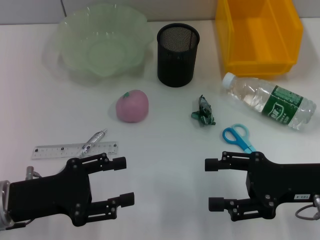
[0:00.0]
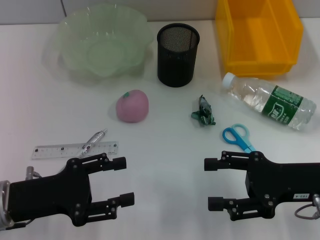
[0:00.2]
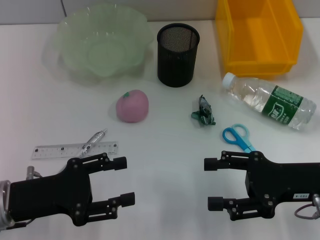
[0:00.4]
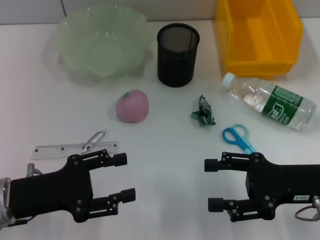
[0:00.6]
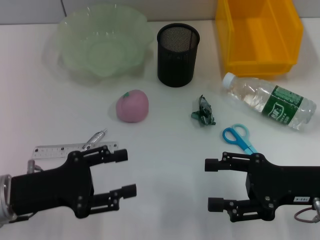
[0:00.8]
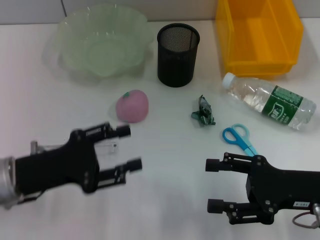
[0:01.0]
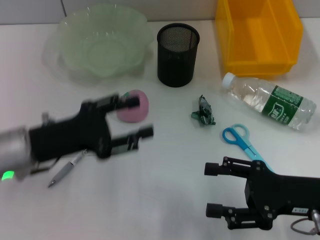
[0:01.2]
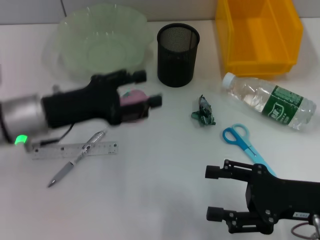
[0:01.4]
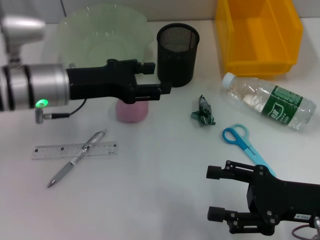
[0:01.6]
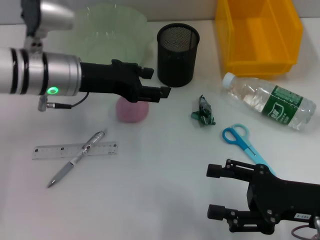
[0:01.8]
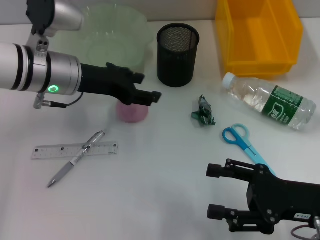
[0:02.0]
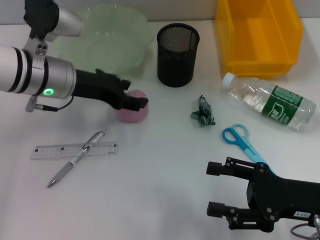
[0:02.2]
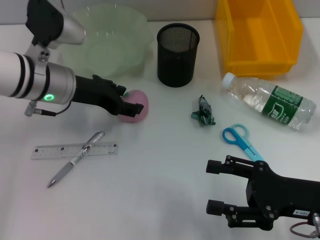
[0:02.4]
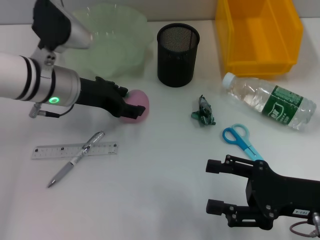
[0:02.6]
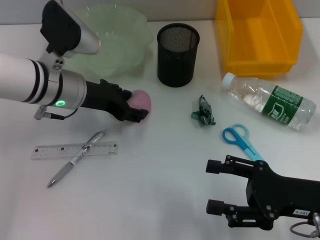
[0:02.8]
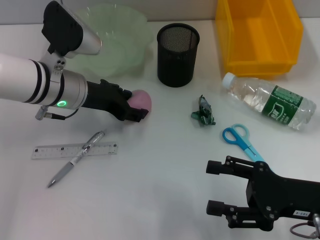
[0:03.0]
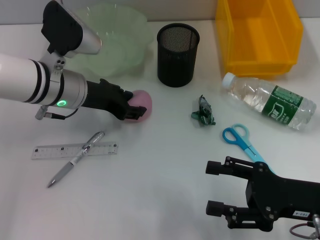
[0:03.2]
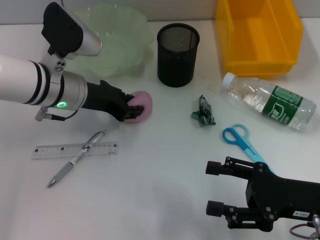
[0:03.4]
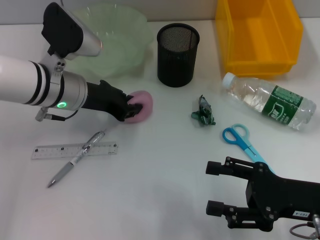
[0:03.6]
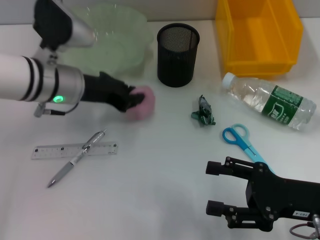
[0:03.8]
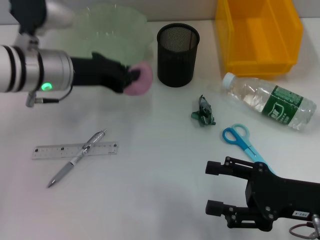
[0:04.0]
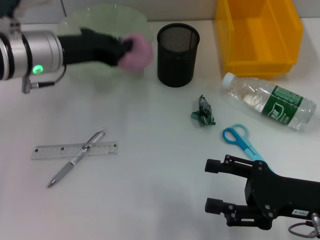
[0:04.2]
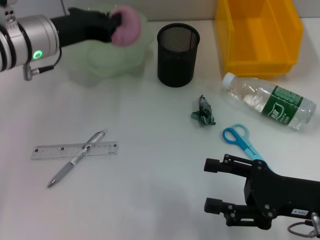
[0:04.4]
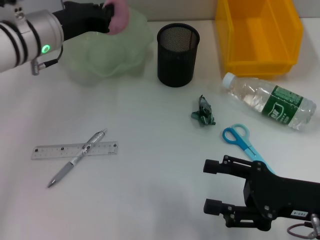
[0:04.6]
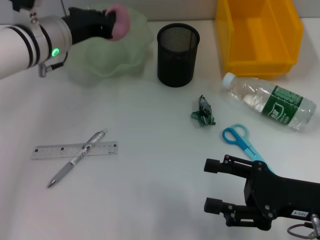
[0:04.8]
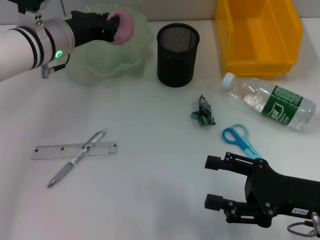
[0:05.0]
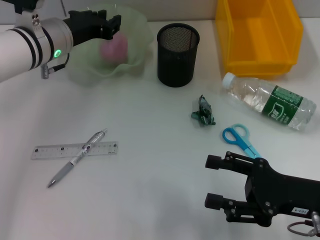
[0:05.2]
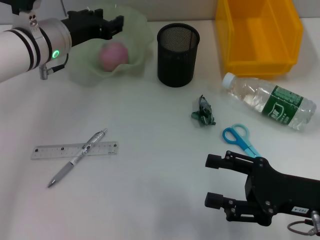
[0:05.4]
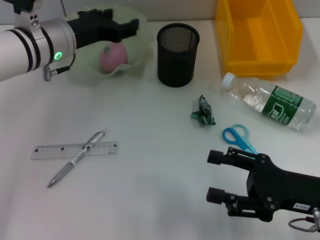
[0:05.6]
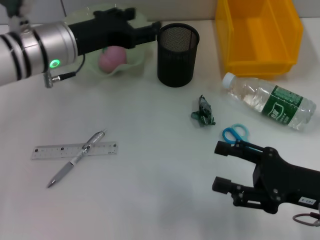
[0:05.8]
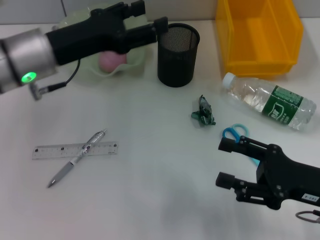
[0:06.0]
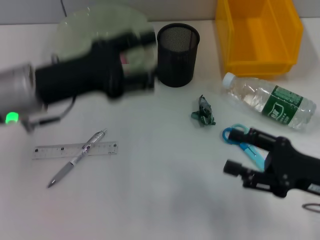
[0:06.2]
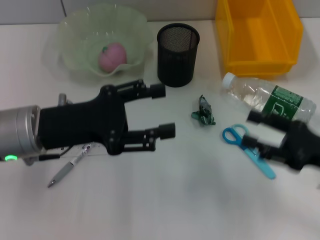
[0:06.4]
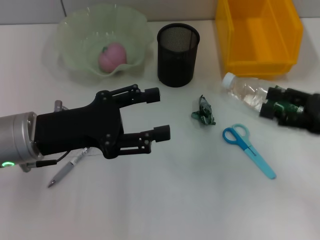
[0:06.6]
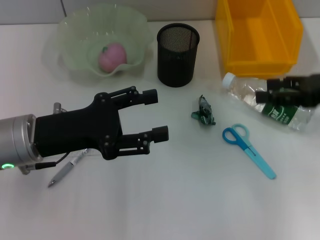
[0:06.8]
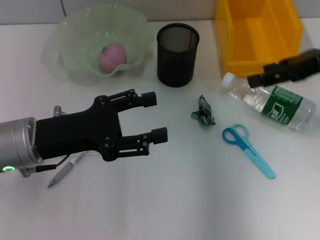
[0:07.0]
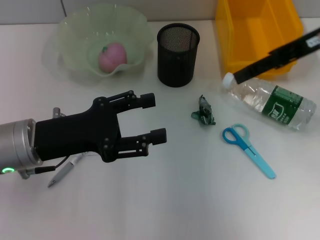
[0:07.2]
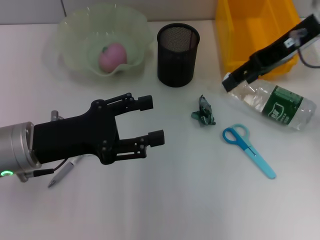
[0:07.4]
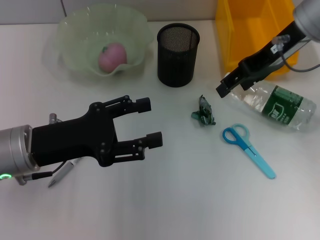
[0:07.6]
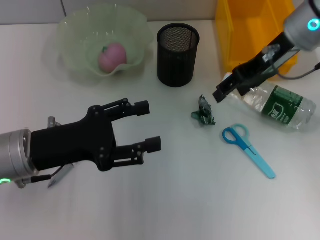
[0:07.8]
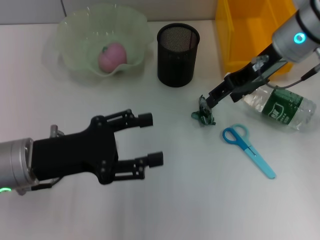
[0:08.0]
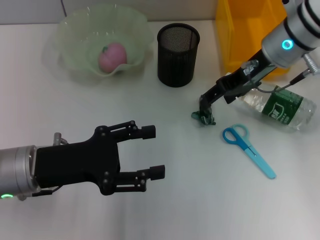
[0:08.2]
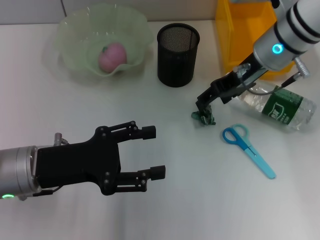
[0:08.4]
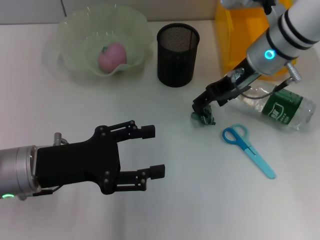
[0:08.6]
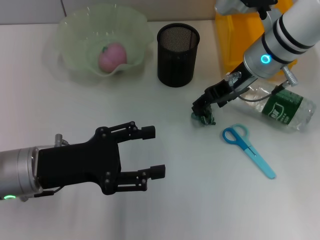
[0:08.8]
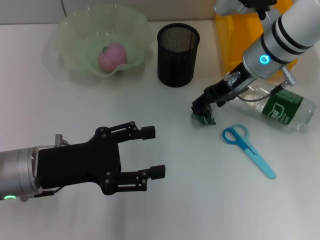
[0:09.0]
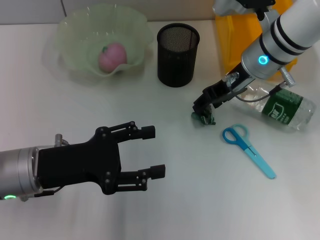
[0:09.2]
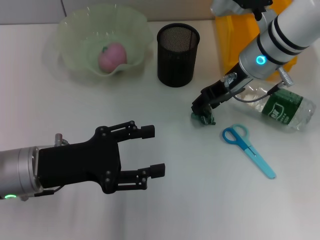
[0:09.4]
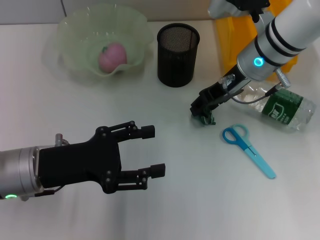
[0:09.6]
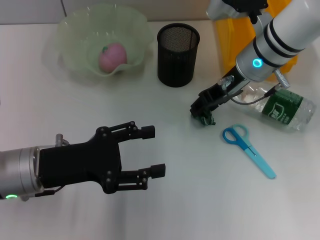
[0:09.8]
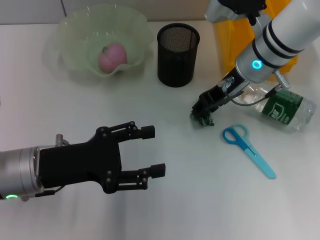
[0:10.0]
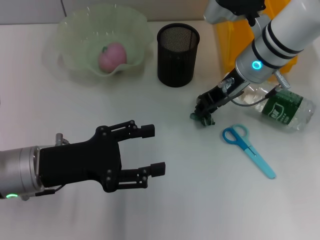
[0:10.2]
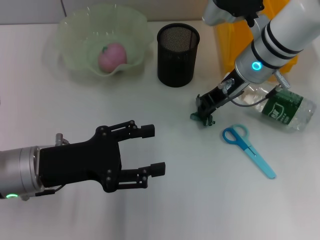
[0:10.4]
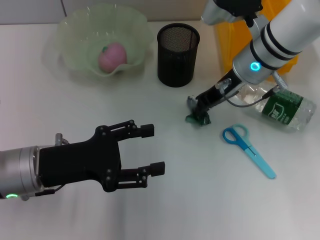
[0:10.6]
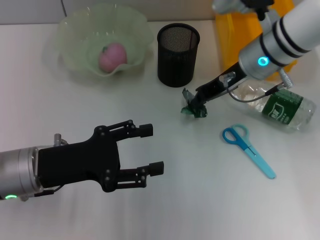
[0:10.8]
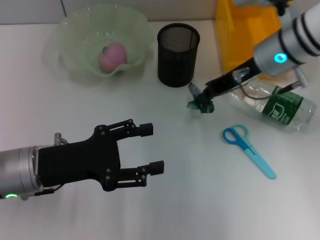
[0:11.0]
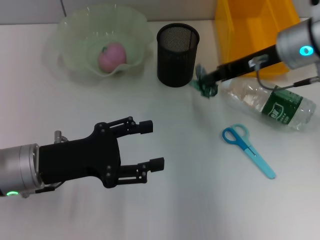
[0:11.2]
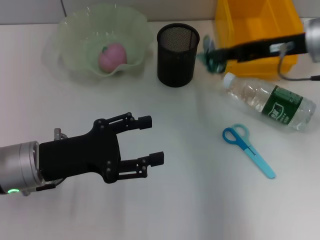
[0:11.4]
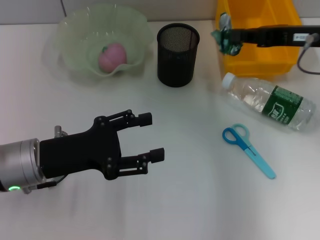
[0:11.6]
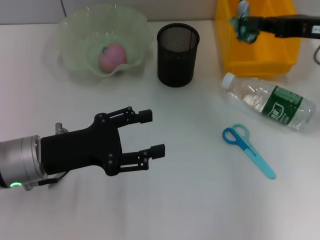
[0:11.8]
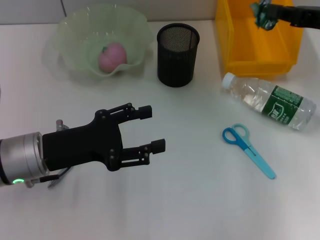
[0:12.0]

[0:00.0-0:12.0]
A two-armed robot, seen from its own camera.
Step, 0:00.0 to 0:03.4: Grab the peach with the left hand.
Step, 0:03.8 to 0:05.4: Place the peach into the fruit bowl with the left hand.
Step, 0:05.6 to 0:10.4: Grab the plastic with the right hand.
0:00.0 to 0:01.6: The left gripper heads forward, upward and to the right, covering about 15 cm.
0:03.0 to 0:04.4: The left gripper moves roughly 5 cm, and closes its fingers.
0:04.4 to 0:06.0: The left gripper opens.
0:06.0 to 0:07.6: The right gripper heads forward and upward, covering approximately 25 cm. The left gripper is displaced backward and downward by about 10 cm.
0:07.6 to 0:09.0: The right gripper travels downward by some 10 cm.
0:09.0 to 0:10.4: The right gripper closes its fingers.
0:10.4 to 0:12.0: The right gripper shifts some 15 cm to the right.

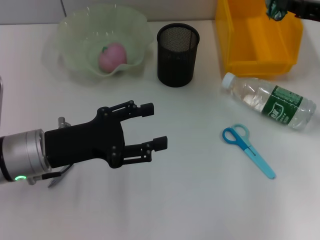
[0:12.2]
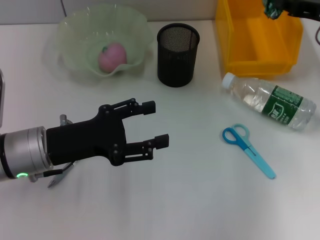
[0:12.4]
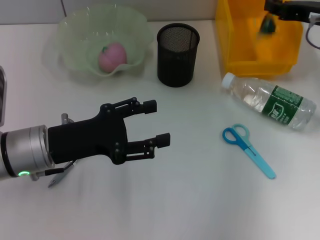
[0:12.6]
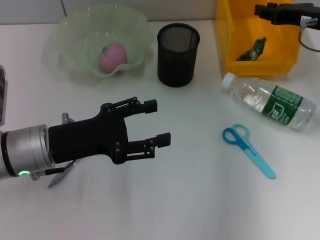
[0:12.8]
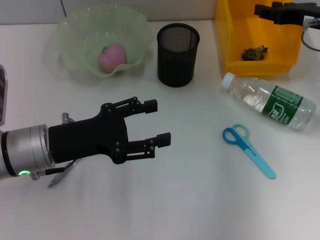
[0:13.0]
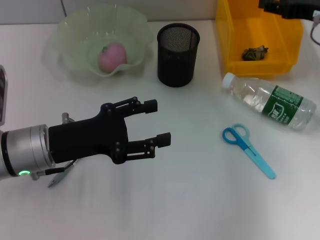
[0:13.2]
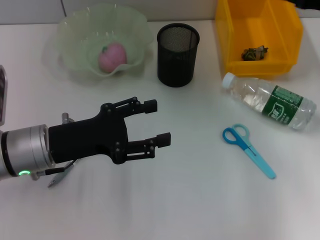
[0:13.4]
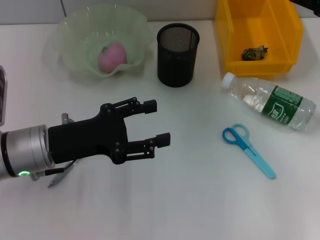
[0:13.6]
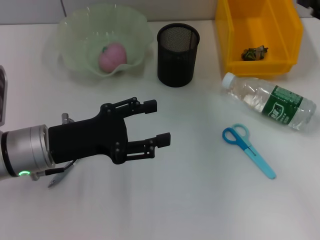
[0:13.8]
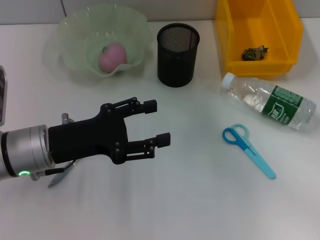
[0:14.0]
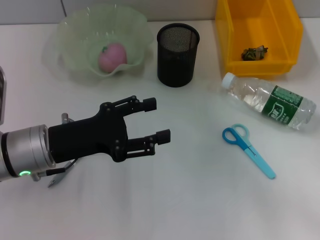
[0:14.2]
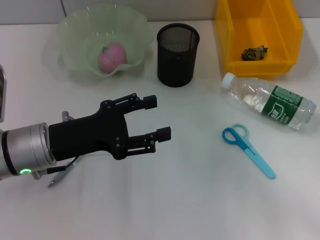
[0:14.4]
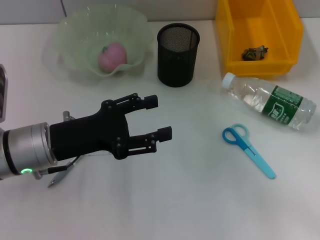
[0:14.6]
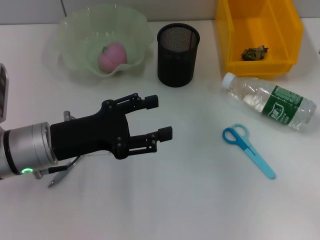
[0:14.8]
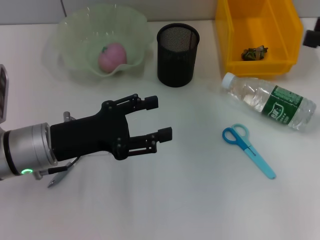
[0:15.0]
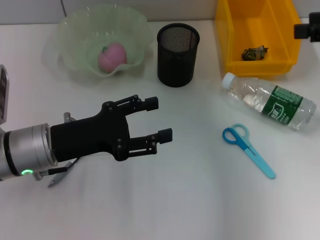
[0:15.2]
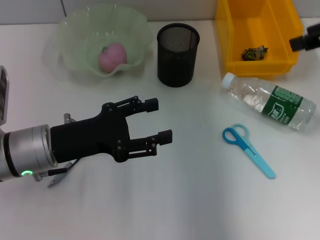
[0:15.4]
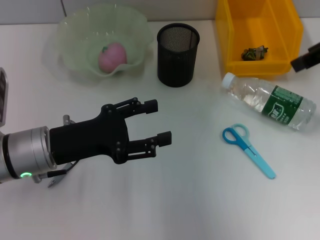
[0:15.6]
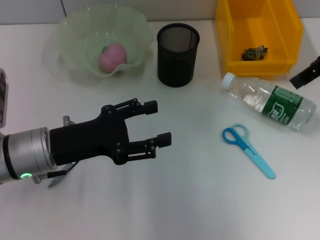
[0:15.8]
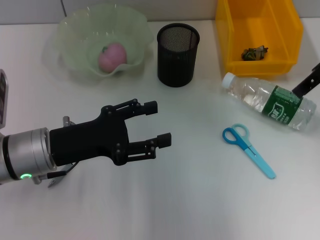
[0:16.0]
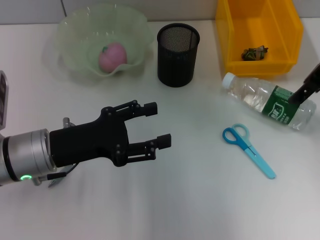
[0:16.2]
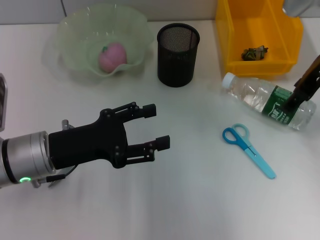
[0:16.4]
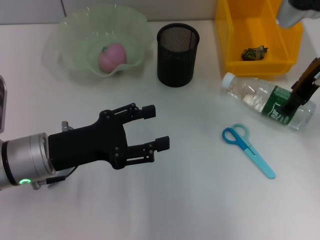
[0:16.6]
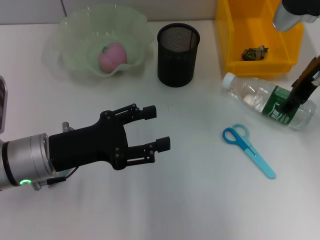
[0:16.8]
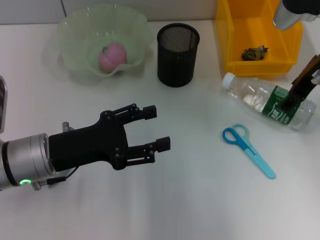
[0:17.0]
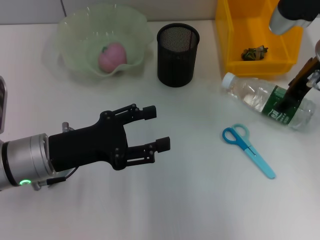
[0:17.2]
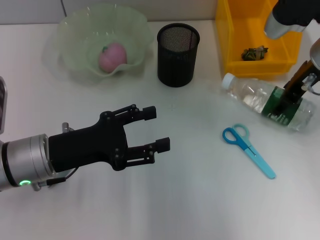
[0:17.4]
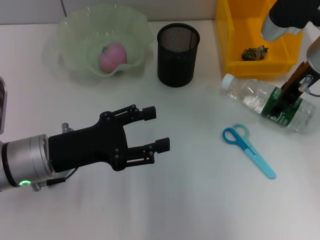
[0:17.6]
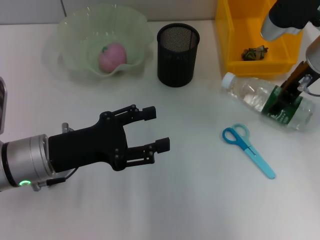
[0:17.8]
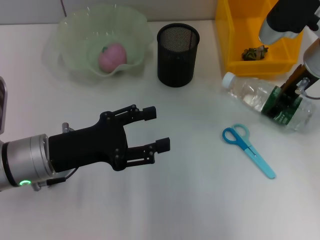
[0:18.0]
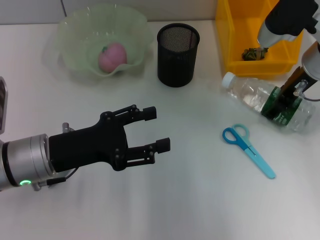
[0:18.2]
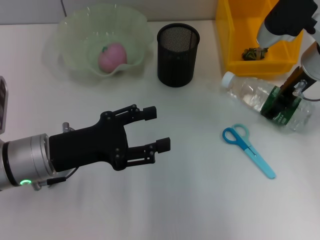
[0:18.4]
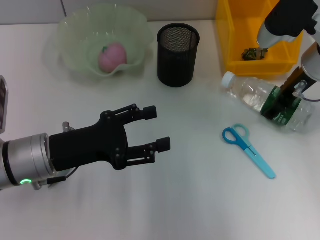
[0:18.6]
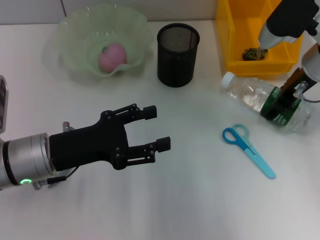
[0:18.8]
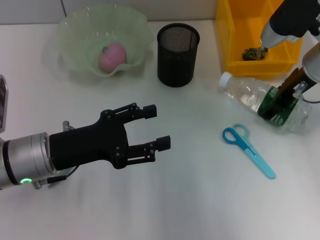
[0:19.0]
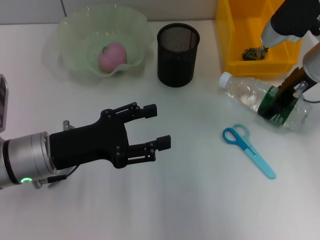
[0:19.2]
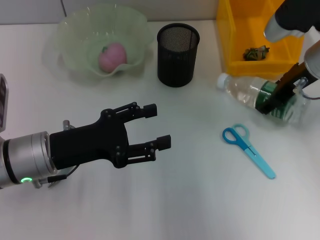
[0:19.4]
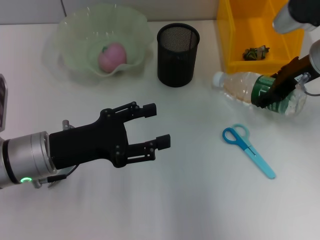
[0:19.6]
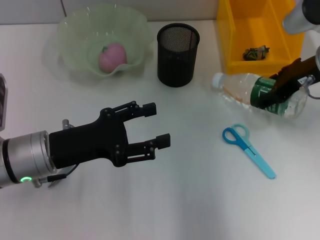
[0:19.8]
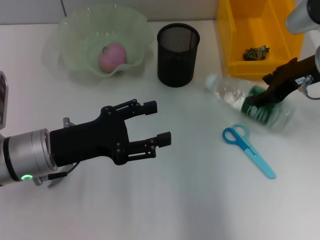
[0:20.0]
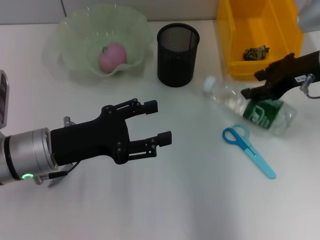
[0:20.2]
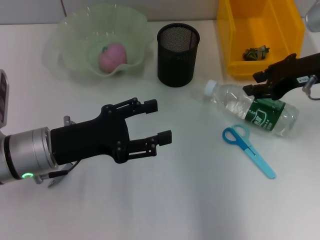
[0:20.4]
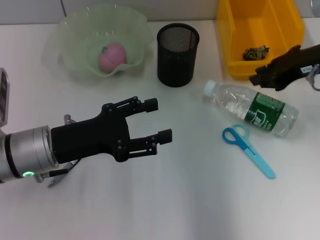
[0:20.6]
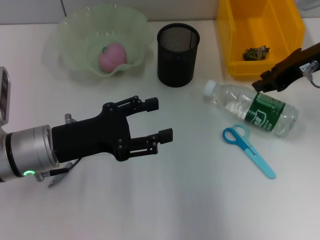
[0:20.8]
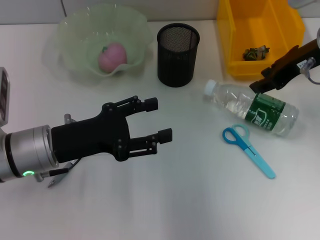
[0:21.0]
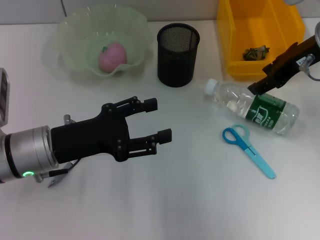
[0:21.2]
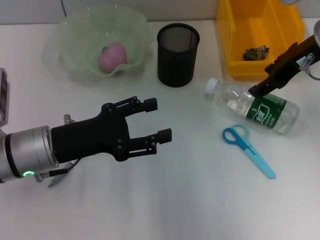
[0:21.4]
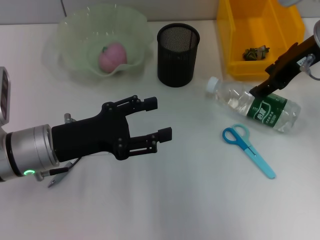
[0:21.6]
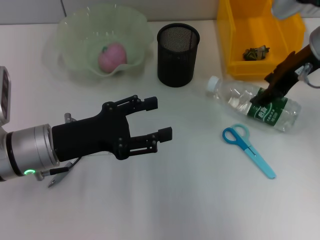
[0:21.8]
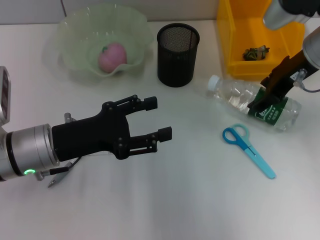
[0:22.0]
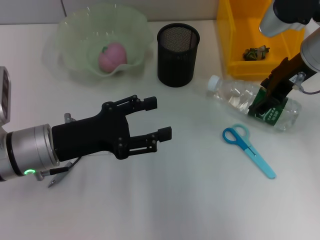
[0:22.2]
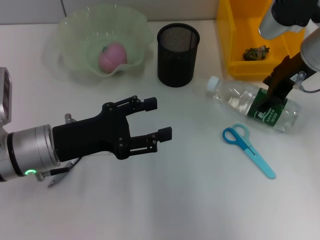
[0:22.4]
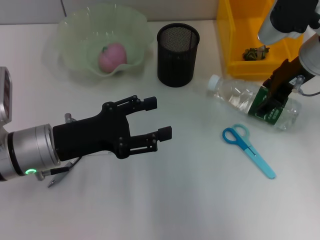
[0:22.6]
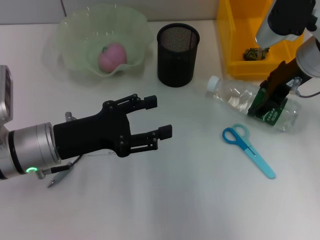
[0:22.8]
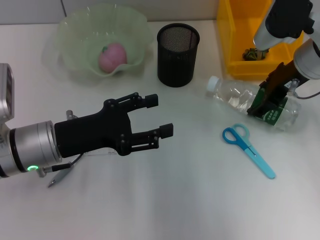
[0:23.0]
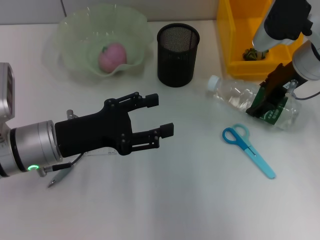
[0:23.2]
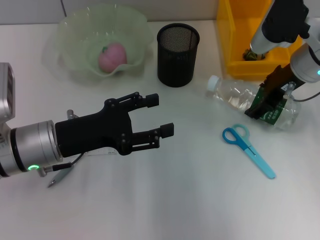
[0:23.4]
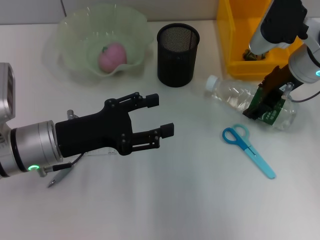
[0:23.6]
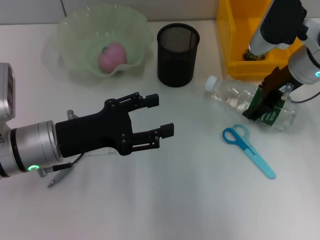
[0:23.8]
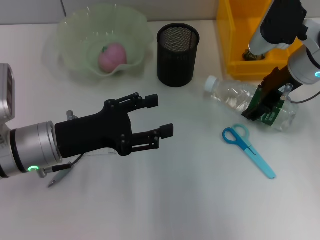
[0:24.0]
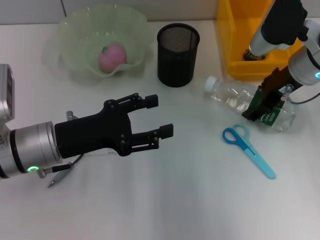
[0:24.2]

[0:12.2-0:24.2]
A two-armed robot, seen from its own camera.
Step, 0:13.4 to 0:24.0: Grab the water bottle with the right hand.
0:12.2 to 0:13.8: The right gripper heads backward, covering roughly 10 cm, and opens its fingers.
0:13.8 to 0:15.2: The right gripper is displaced upward by about 10 cm.
0:15.2 to 0:16.6: The right gripper travels to the left, forward and downward by roughly 15 cm.
0:16.6 to 0:19.8: The grippers stay close to where they were, moving slightly.
0:19.8 to 0:21.2: The right gripper closes up.
0:21.2 to 0:22.6: The right gripper opens up.
0:22.6 to 0:24.2: The grippers stay close to where they were, moving slightly.
